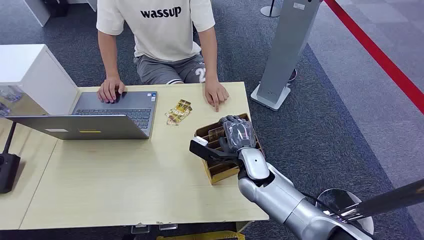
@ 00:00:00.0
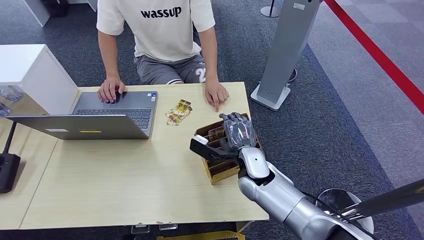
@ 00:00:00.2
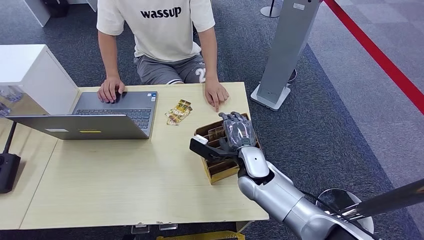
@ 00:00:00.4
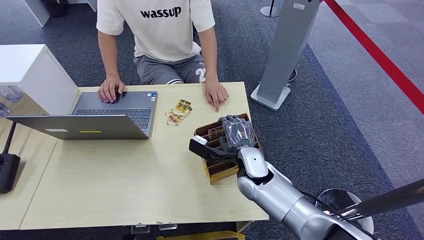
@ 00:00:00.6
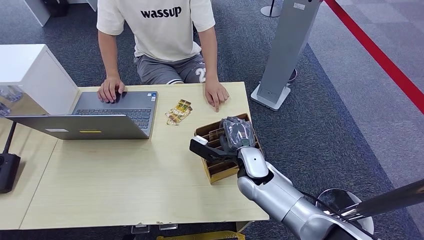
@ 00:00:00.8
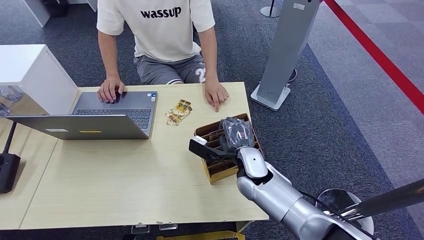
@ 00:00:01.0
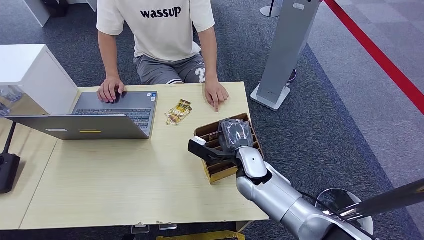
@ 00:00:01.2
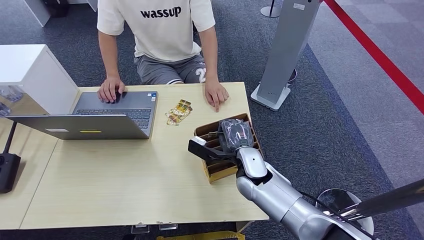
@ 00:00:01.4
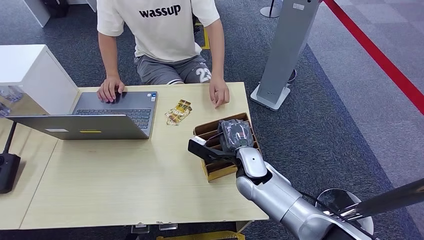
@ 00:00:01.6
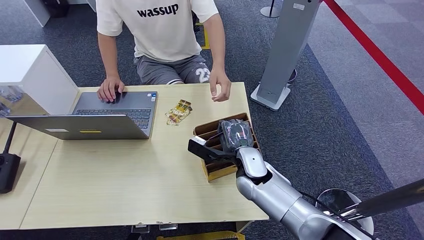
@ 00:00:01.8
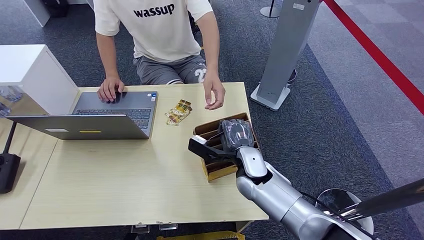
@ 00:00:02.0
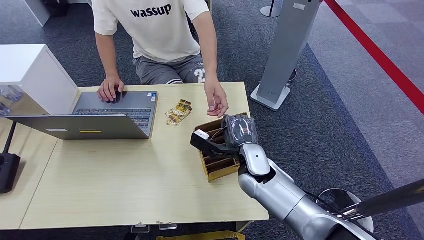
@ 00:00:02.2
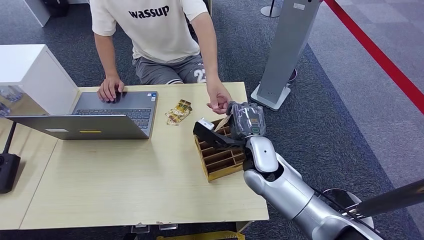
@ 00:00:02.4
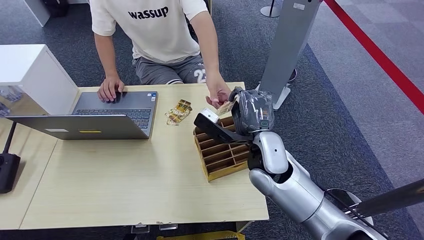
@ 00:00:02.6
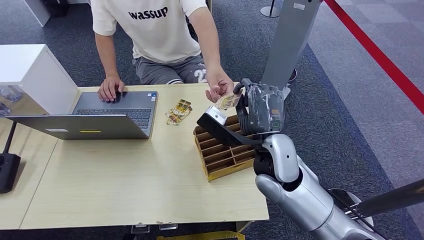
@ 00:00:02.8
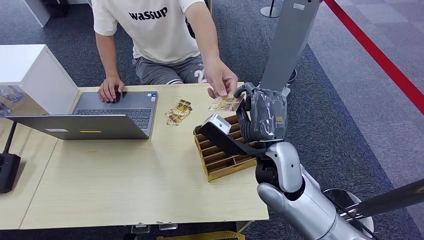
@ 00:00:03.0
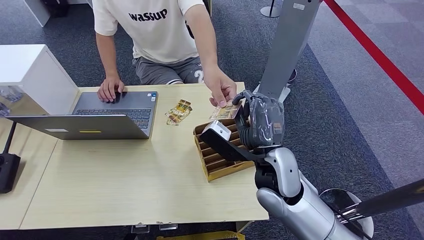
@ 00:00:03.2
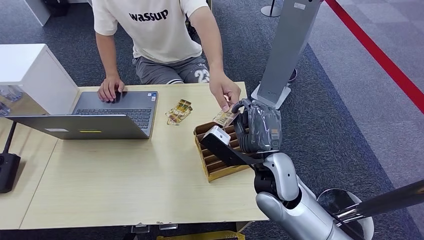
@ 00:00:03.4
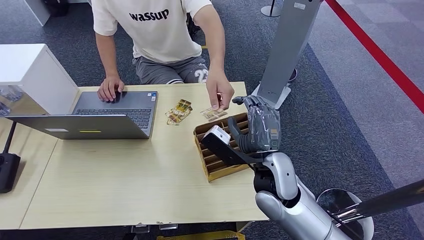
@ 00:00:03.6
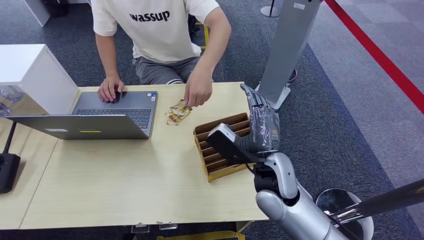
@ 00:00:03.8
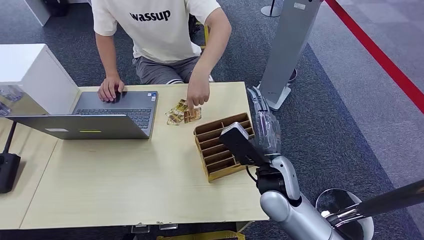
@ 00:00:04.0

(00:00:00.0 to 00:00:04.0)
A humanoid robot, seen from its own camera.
Step, 00:00:00.0 - 00:00:02.2: Pick up the room card from the card holder.
Step, 00:00:02.6 - 00:00:03.8: Hand the room card to the target.
00:00:01.4 - 00:00:02.6: The right hand travels upward by about 10 cm.
00:00:02.6 - 00:00:04.0: The right hand ends up roughly 5 cm from where it was.
